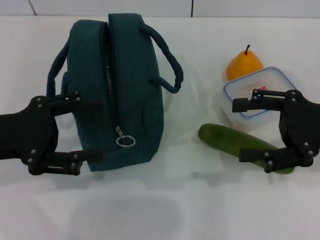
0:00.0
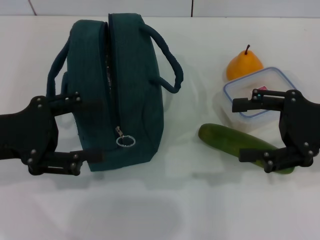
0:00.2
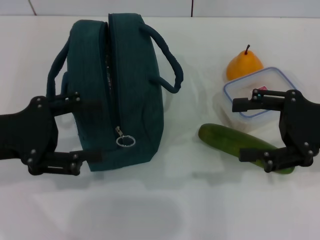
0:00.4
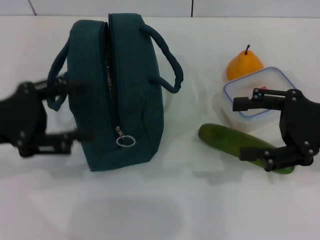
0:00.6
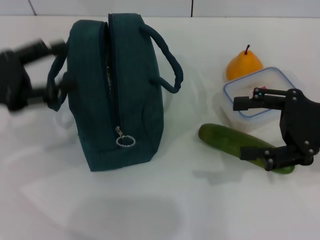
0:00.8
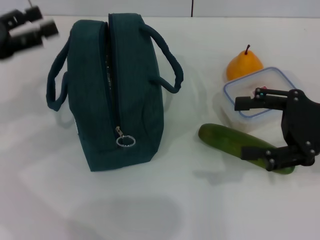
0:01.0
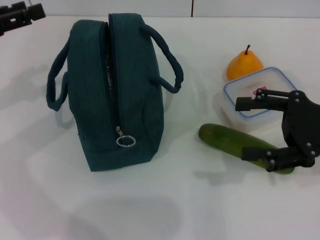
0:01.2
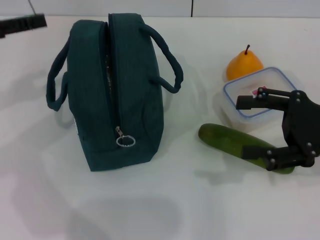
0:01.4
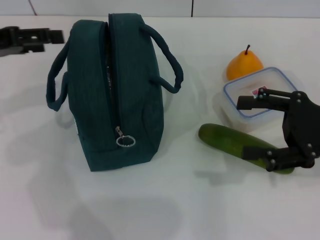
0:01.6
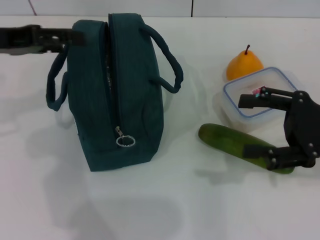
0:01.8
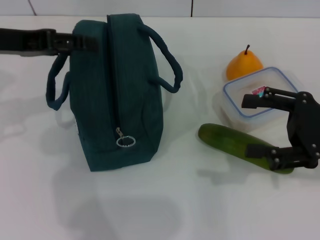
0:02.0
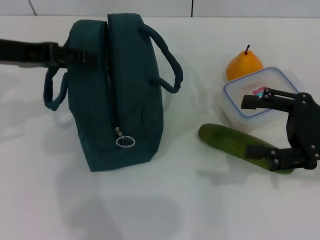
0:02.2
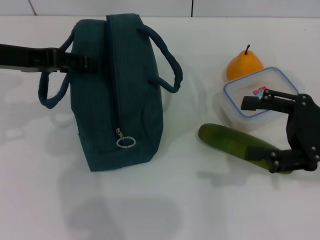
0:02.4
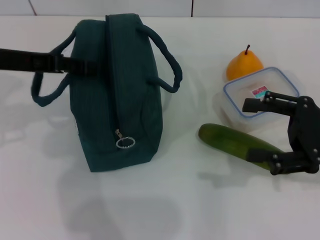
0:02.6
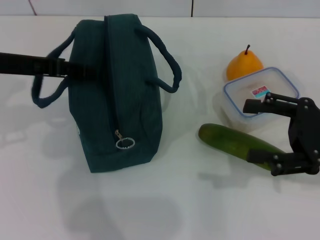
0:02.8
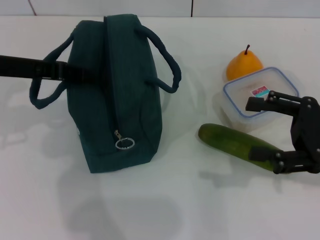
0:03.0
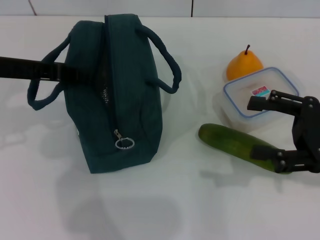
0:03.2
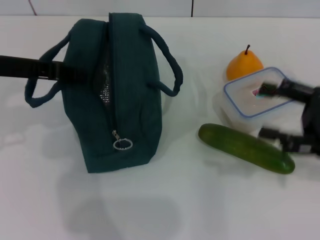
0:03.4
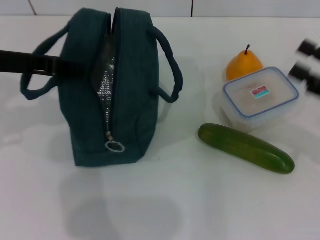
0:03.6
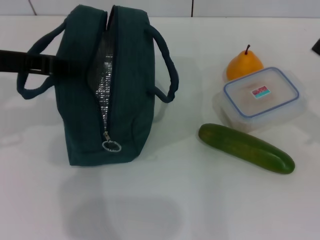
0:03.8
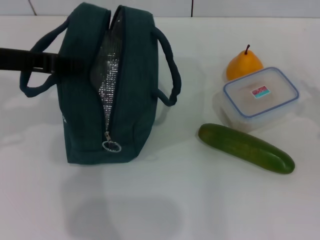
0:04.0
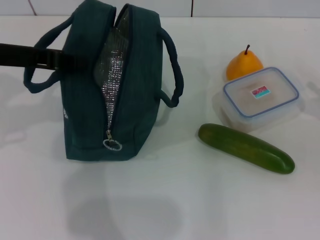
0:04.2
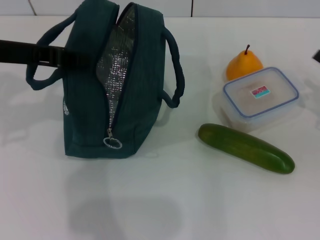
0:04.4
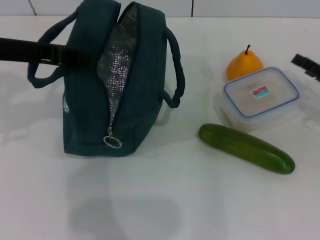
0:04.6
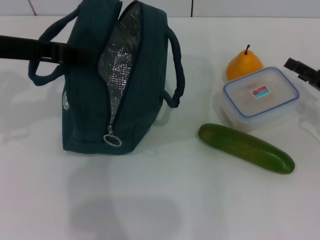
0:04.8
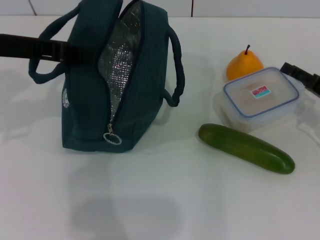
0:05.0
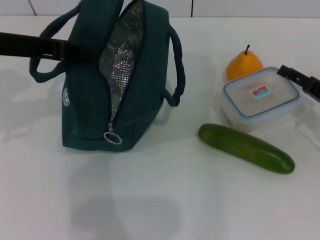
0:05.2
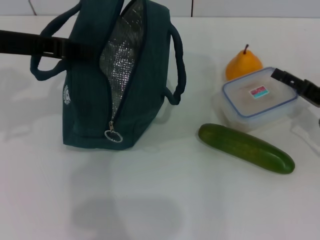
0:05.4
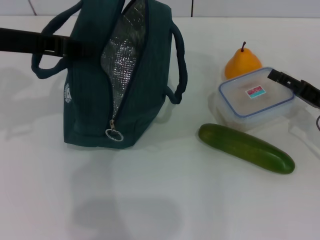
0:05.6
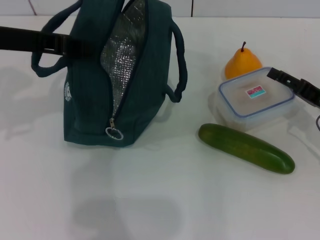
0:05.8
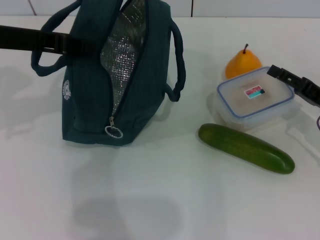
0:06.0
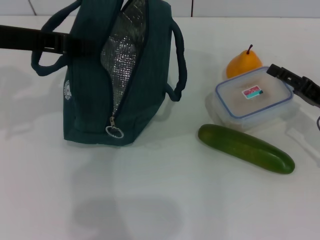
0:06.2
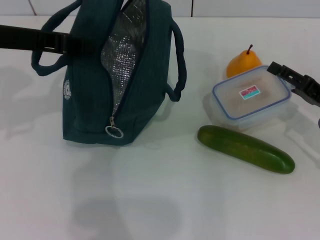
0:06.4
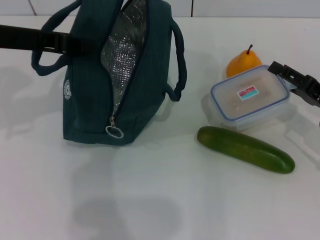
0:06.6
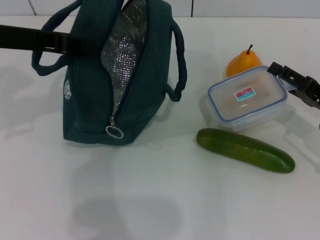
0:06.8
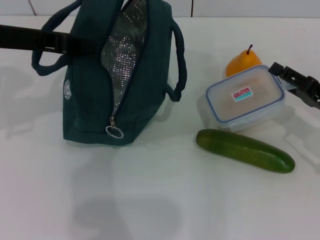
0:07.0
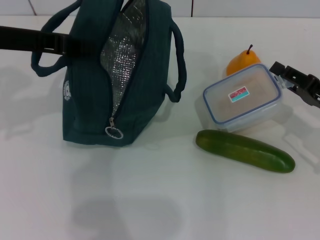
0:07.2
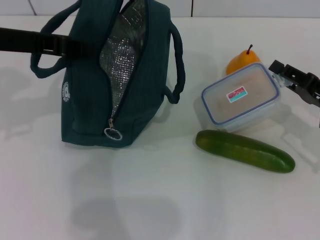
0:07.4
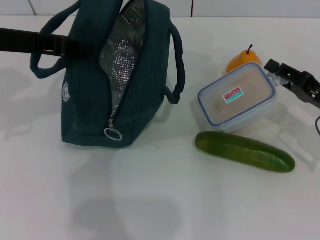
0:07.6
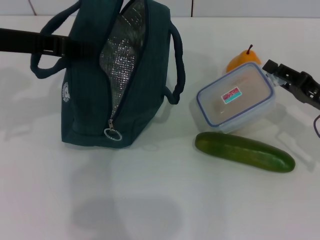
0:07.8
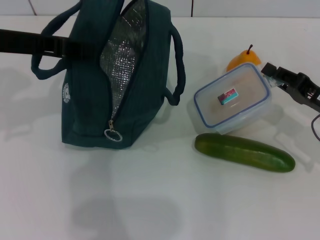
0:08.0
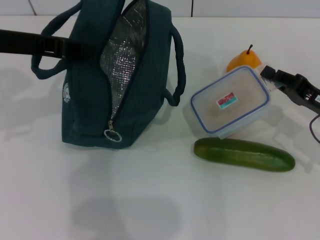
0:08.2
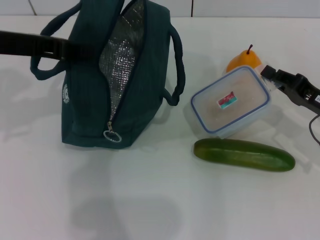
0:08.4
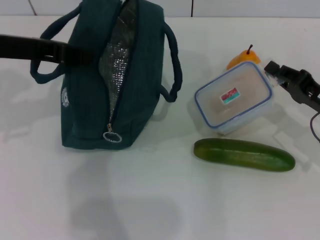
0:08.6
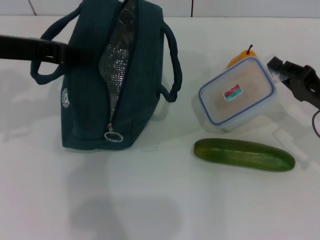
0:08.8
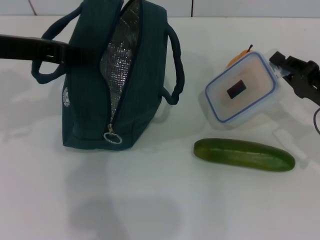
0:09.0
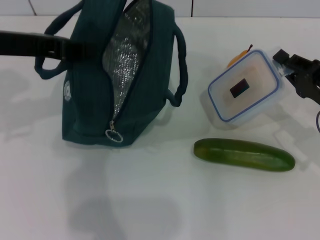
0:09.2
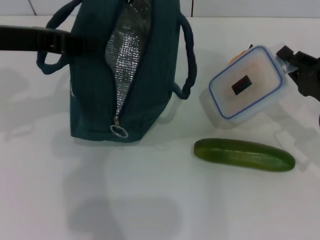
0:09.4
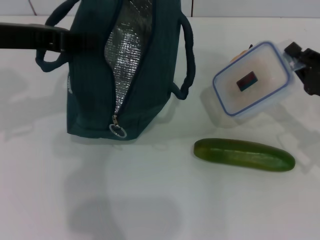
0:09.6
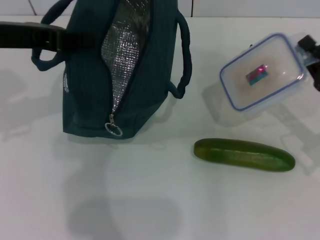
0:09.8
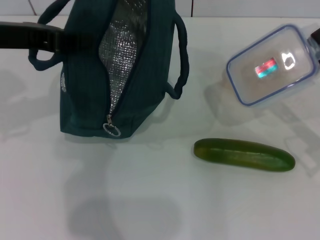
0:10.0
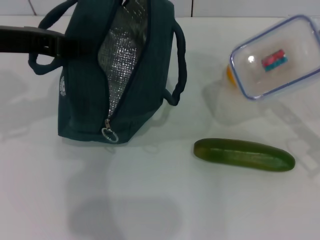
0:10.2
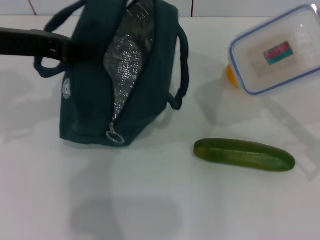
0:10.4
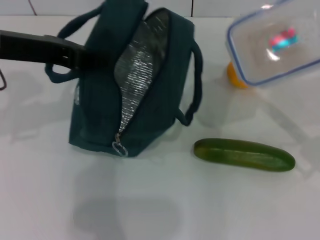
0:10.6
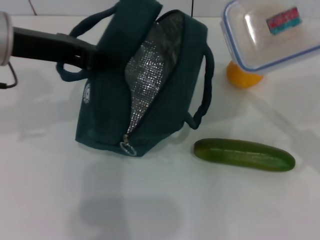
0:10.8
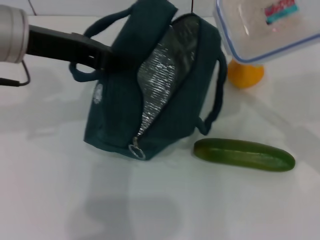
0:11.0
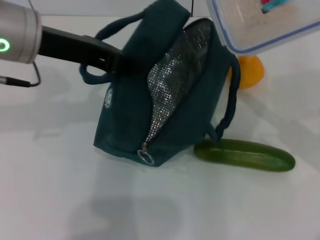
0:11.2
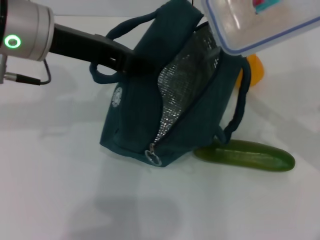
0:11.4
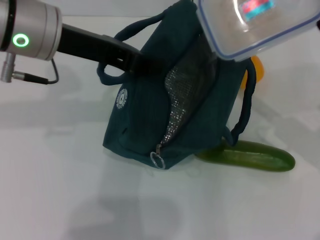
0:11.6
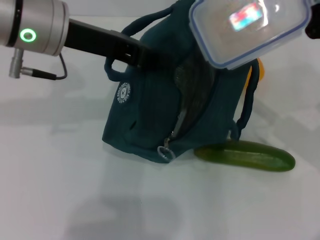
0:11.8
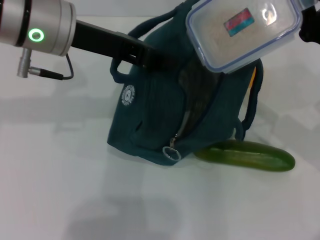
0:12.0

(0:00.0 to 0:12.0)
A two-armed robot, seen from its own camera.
Step, 0:00.0 - 0:03.2: Hold the lunch bag with your left hand.
Step, 0:03.6 - 0:08.2: Pick up the lunch box with your right hand.
0:00.0 - 0:01.6: The left gripper goes some 10 cm forward and upward.
0:01.6 - 0:03.0: The left gripper goes approximately 5 cm to the right, and closes its fingers.
0:03.0 - 0:04.4: The left gripper closes up, while the right gripper shifts some 10 cm to the right, downward and forward.
0:04.4 - 0:06.0: The right gripper heads to the left, covering approximately 5 cm.
0:06.0 - 0:07.6: The right gripper closes up.
0:07.6 - 0:09.0: The right gripper closes its fingers.
0:09.0 - 0:10.4: The right gripper shifts by some 5 cm.
0:10.4 - 0:12.0: The left gripper travels to the right by some 10 cm; the right gripper changes place by about 5 cm.

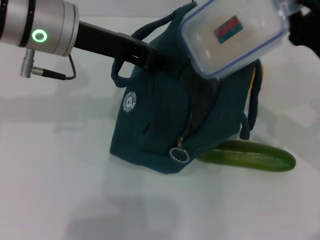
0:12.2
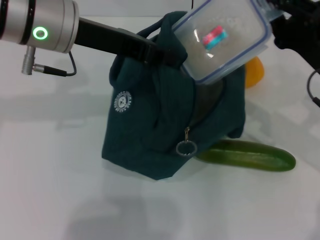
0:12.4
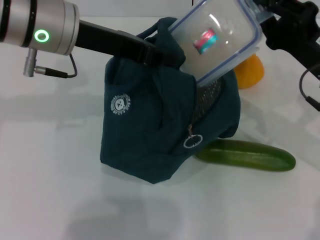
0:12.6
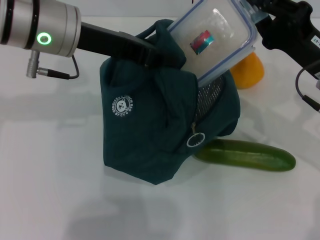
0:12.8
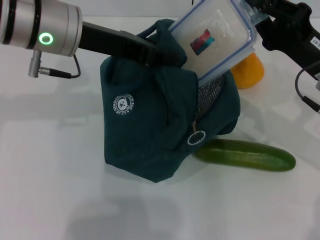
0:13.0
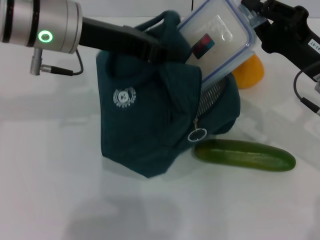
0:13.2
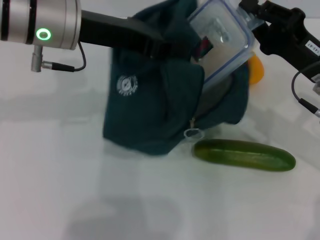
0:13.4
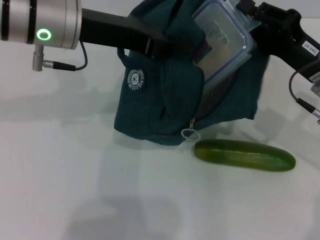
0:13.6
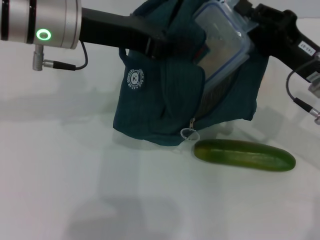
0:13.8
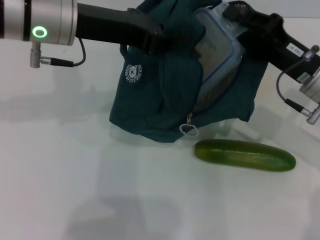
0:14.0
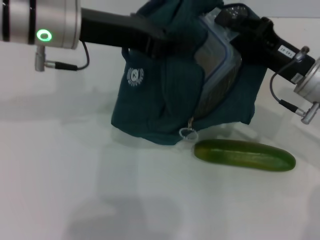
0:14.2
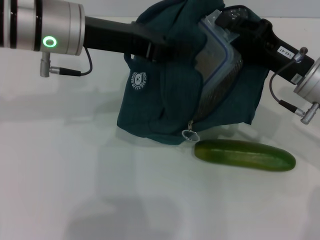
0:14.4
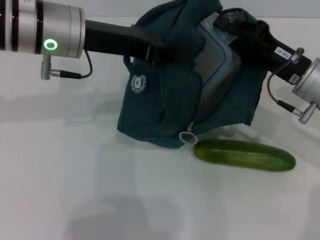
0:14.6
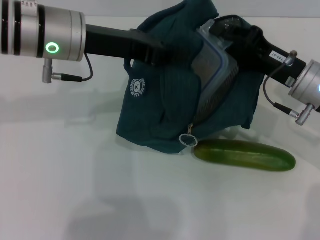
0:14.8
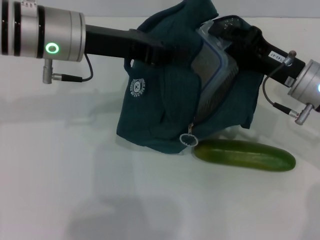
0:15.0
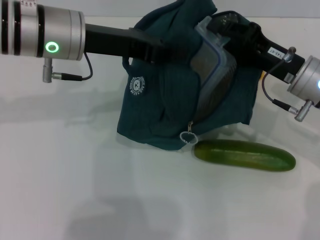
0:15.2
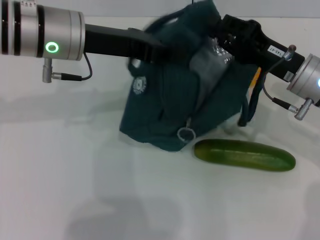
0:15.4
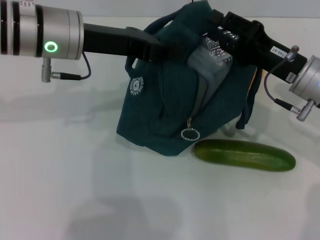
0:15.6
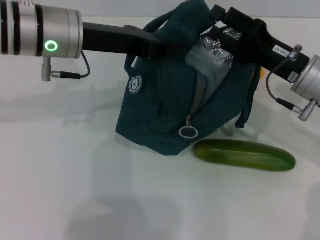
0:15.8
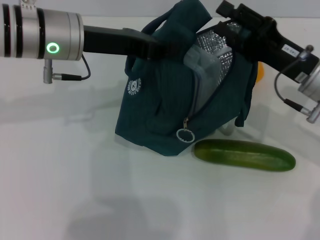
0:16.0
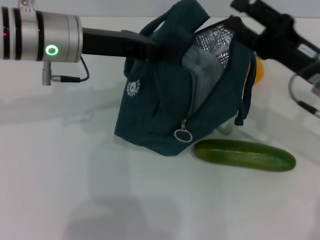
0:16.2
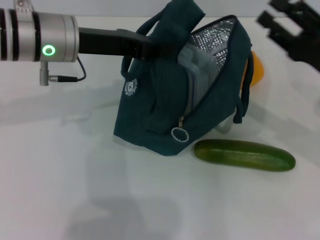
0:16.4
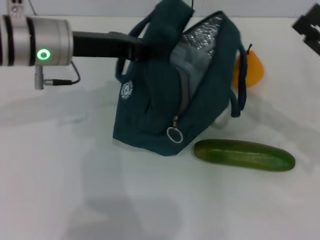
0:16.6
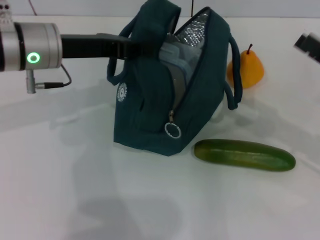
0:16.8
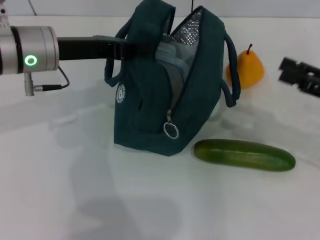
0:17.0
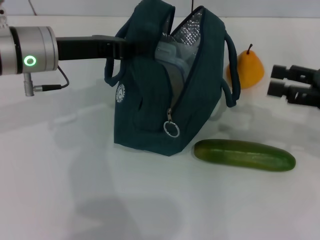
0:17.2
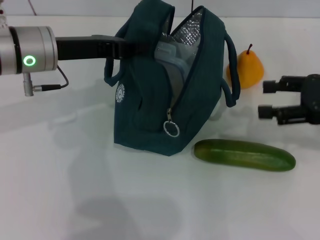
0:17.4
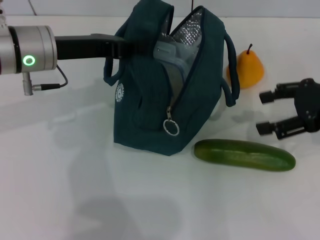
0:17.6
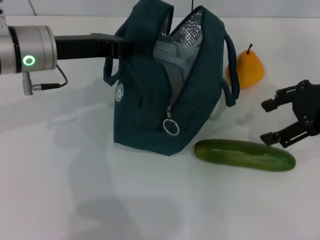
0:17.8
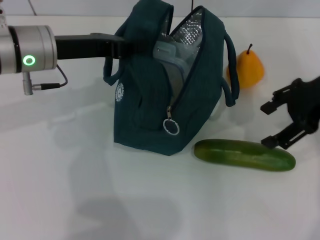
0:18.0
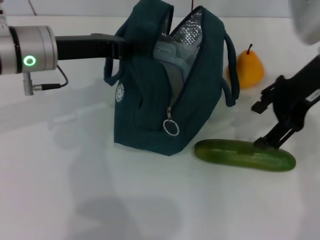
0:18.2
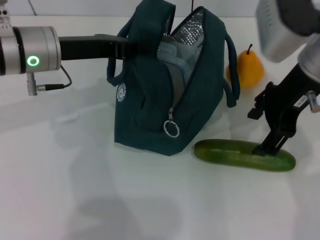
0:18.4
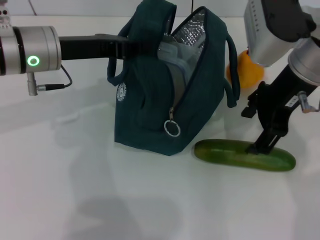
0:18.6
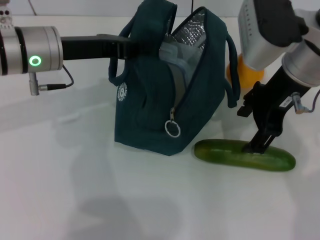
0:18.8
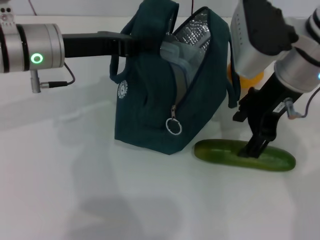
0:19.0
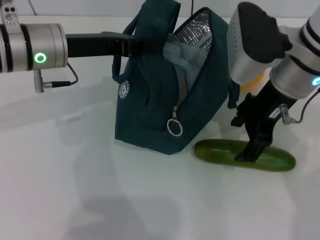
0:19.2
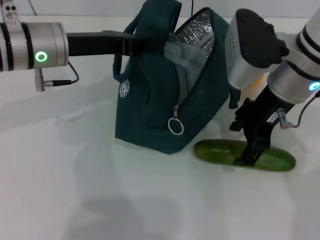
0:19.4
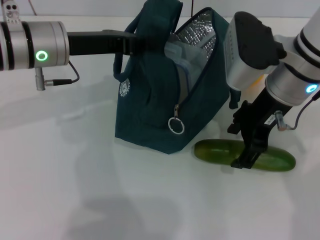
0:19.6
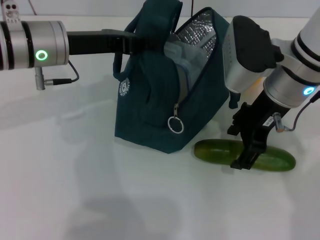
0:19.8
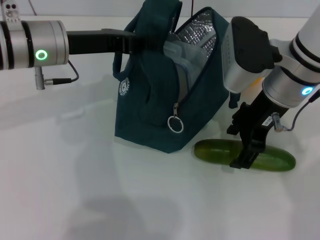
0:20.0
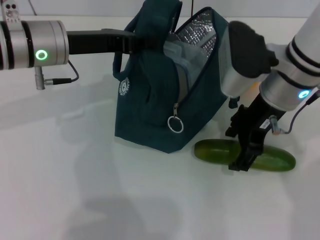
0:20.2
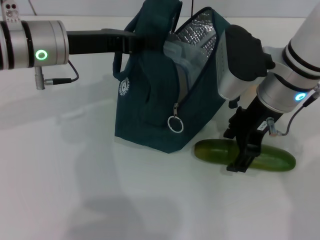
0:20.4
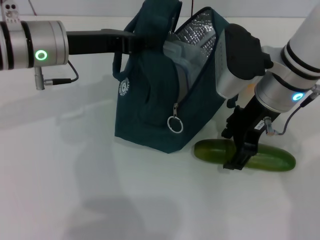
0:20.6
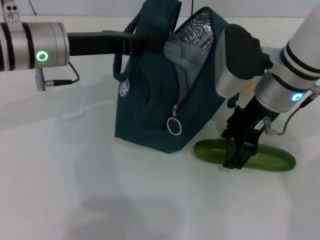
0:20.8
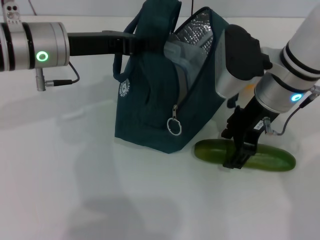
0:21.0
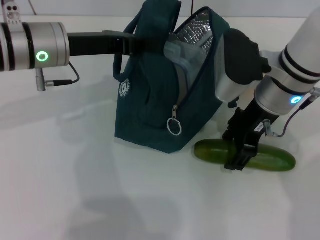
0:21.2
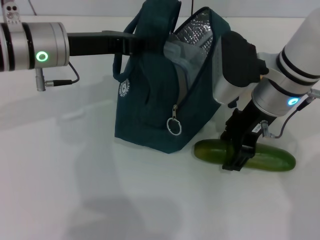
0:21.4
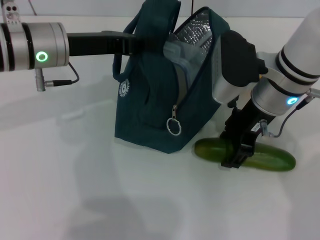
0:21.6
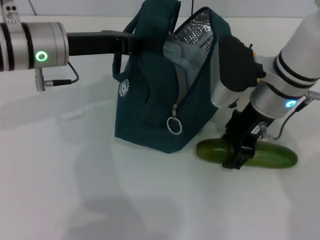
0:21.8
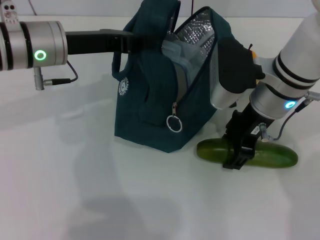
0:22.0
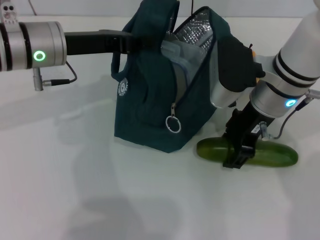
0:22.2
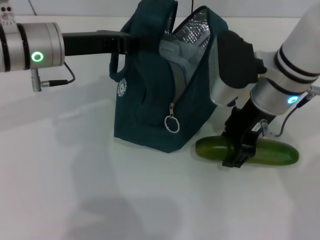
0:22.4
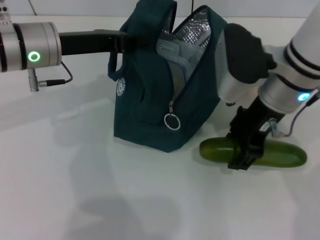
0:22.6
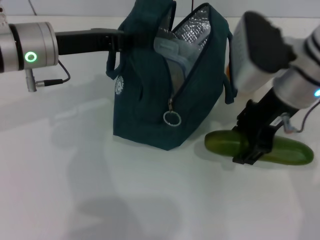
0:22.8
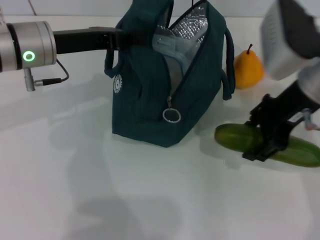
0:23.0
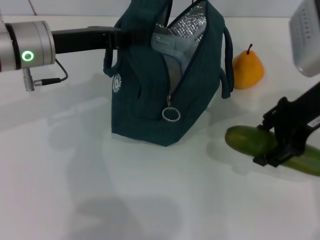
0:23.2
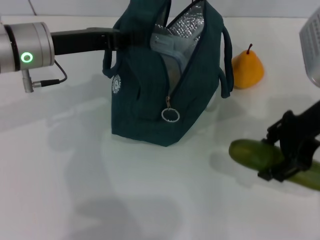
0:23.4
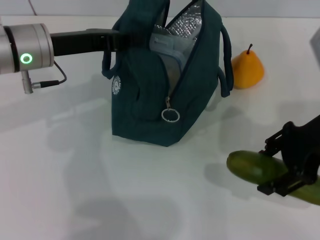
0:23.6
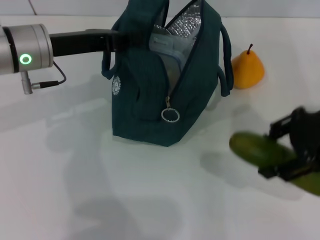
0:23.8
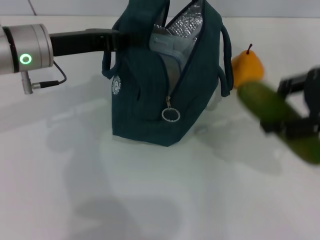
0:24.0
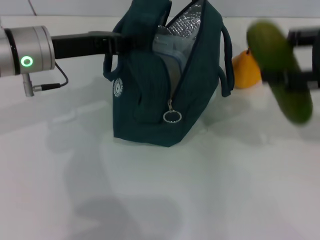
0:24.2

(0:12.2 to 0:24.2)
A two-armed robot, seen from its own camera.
Step, 0:12.2 - 0:15.4: Place the lunch box into the lunch bag with your right hand.
Step, 0:15.6 - 0:22.0: Pick up the cucumber with your right hand.
0:15.2 - 0:16.6: The right gripper shifts some 10 cm to the right and backward, and opens up.
0:16.6 - 0:18.2: The right gripper heads upward, to the left and forward, covering some 15 cm.
0:18.2 - 0:19.8: The right gripper moves to the left and downward, some 10 cm.
0:19.8 - 0:22.6: The grippers make only small movements.
0:22.6 - 0:24.2: The right gripper goes roughly 15 cm to the right and upward.
